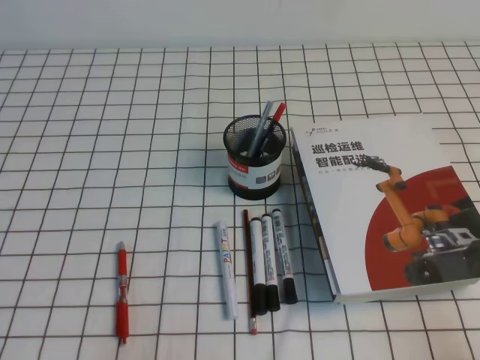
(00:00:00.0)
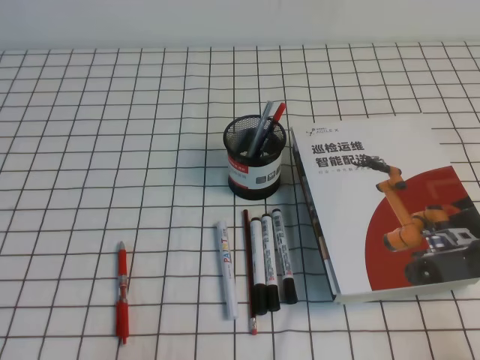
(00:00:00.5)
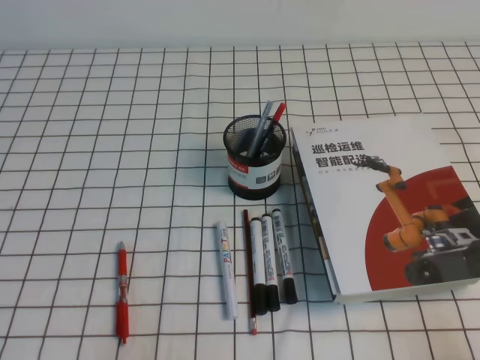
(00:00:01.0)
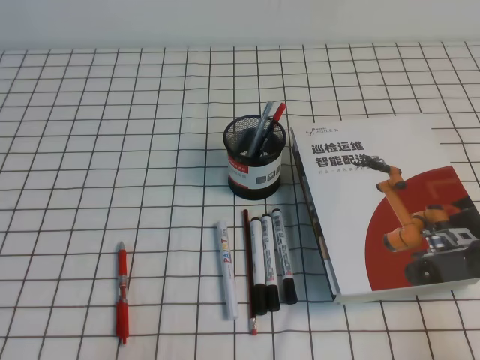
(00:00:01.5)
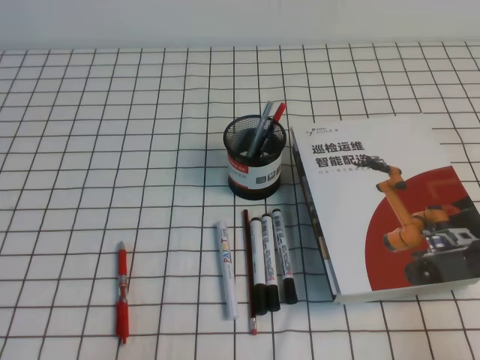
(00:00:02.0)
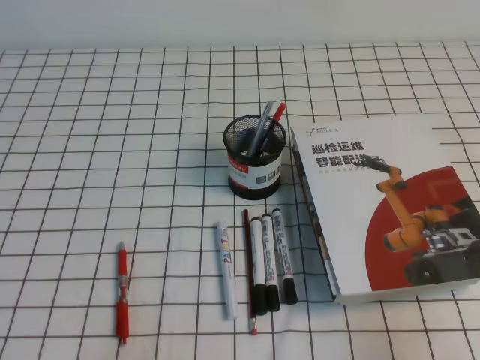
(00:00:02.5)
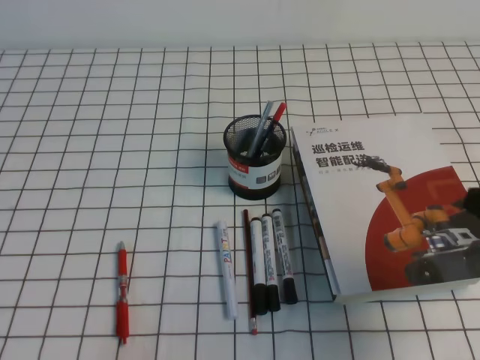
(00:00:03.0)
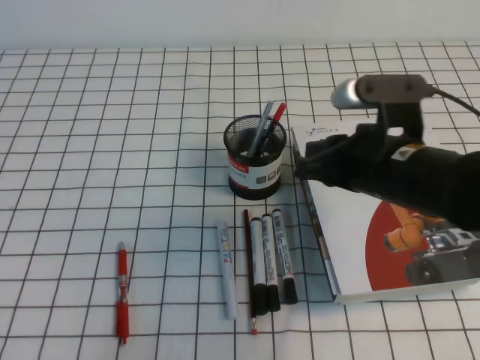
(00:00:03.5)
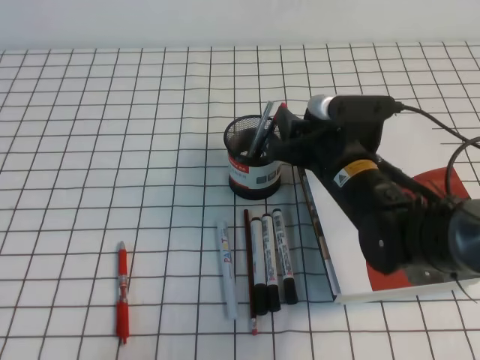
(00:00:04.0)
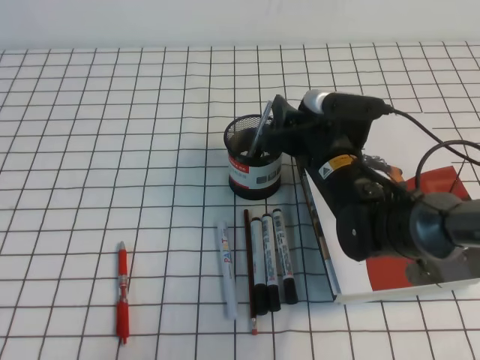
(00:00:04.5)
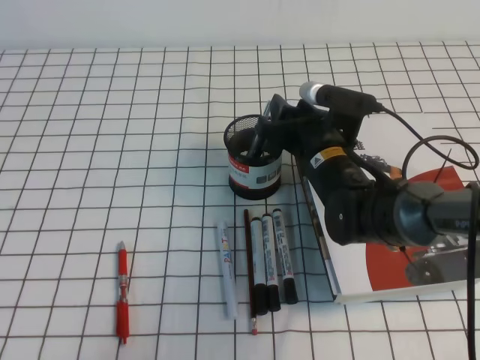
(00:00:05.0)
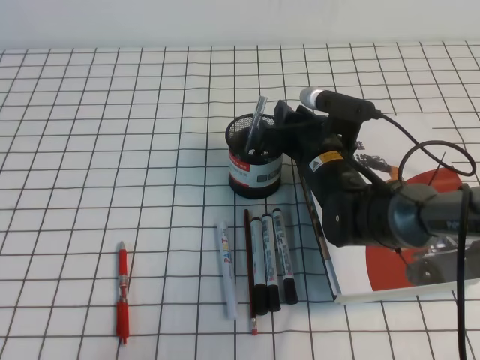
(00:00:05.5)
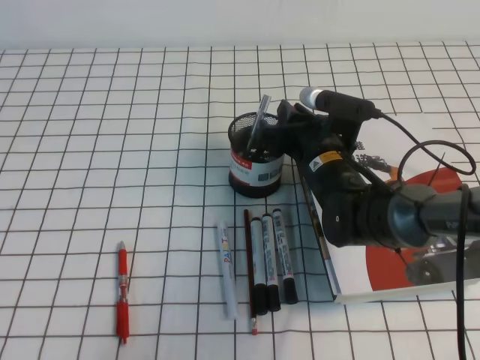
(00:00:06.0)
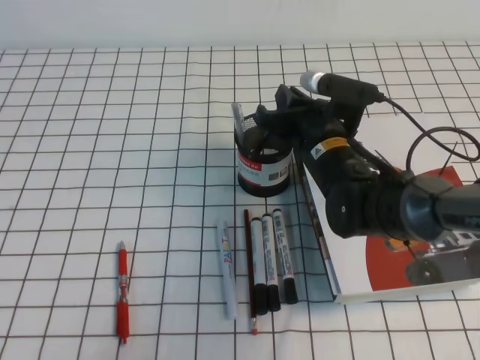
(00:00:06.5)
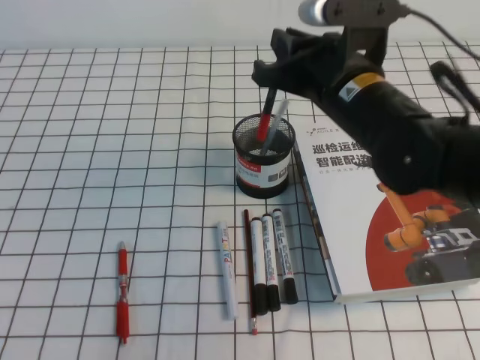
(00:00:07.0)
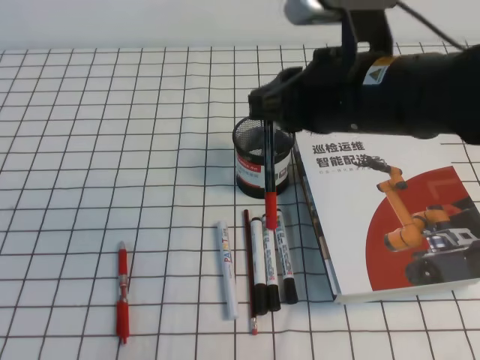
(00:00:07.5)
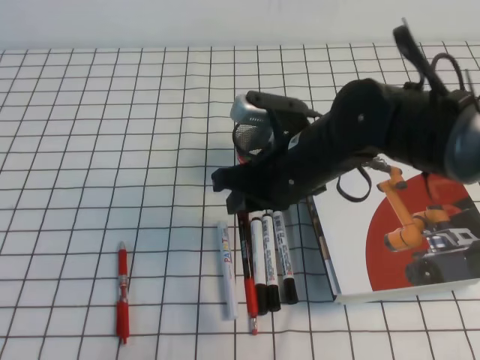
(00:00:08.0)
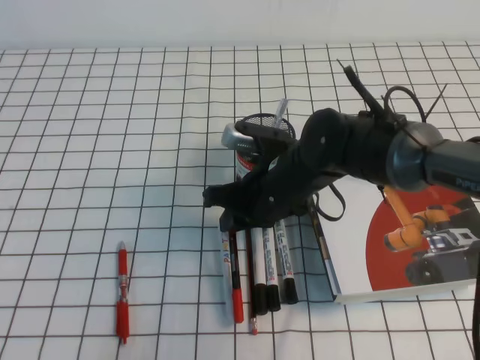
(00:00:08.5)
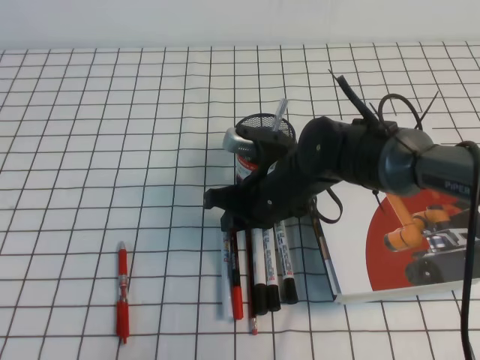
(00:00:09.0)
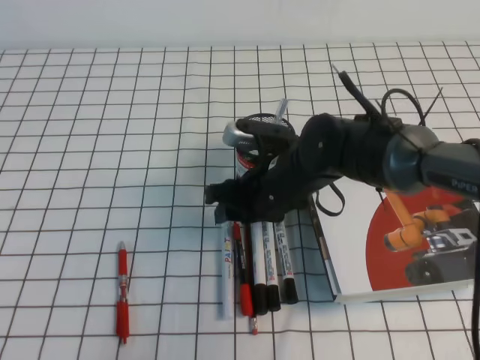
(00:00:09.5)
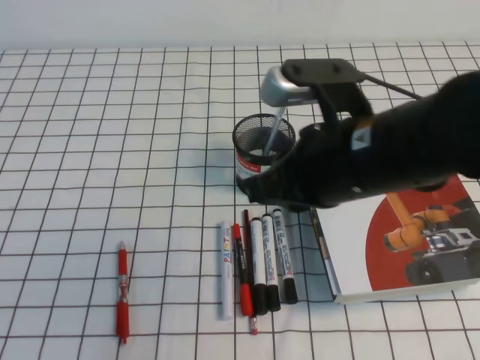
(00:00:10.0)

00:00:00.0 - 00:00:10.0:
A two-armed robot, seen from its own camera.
00:00:02.0 - 00:00:04.0: The right gripper travels forward and to the left by roughly 35 cm, and opens.
00:00:04.0 - 00:00:06.0: The right gripper moves forward, about 5 cm, and closes up.
00:00:06.0 - 00:00:08.0: The right gripper goes about 10 cm upward and backward.
00:00:08.0 - 00:00:10.0: The right gripper heads backward and upward, covering roughly 10 cm, and opens, then closes again.

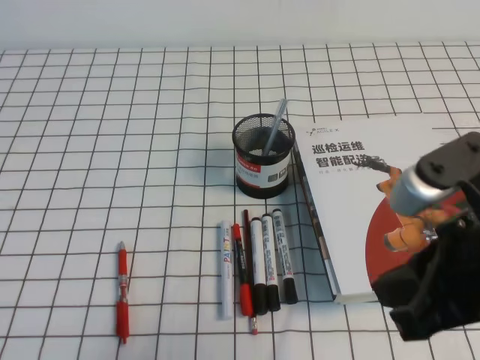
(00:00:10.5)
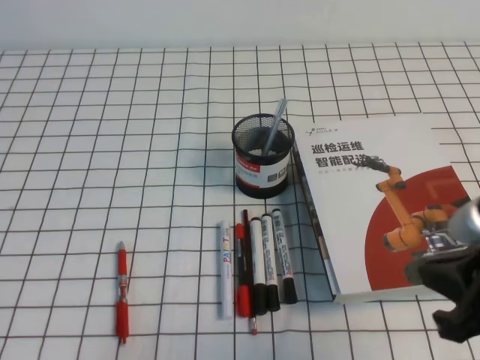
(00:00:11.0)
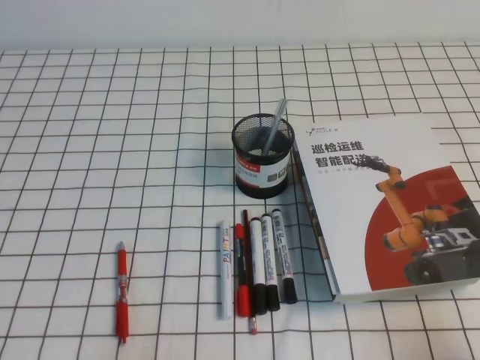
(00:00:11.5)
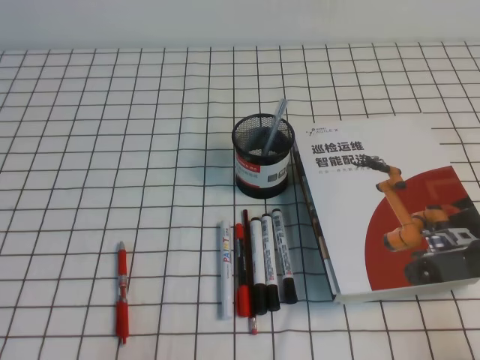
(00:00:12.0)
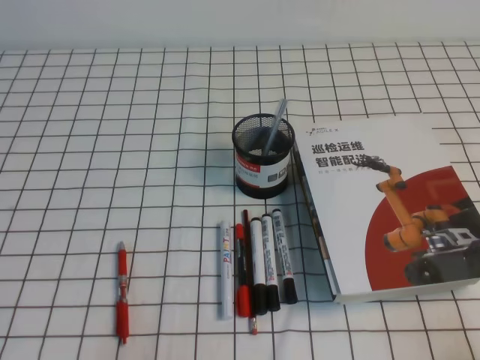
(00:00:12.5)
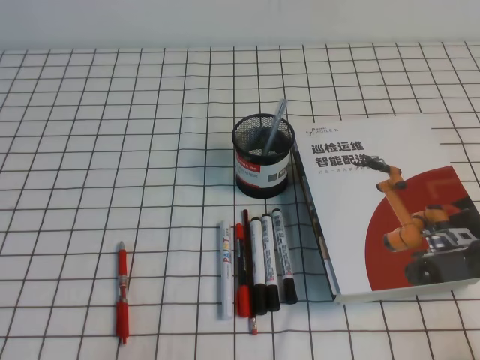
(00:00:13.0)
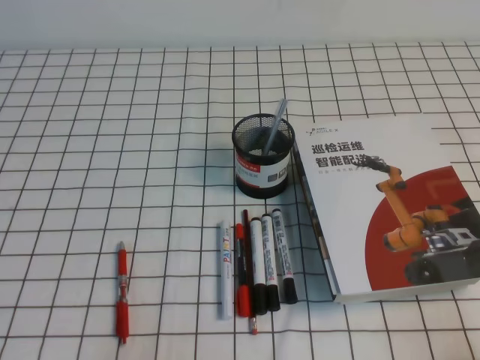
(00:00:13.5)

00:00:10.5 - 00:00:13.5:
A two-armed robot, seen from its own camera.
Step, 00:00:10.5 - 00:00:13.5: Pick up the pen from the pen holder.
00:00:10.5 - 00:00:12.0: The right gripper goes approximately 25 cm downward, to the right and backward.
